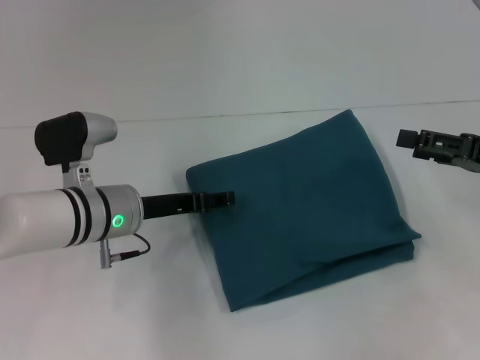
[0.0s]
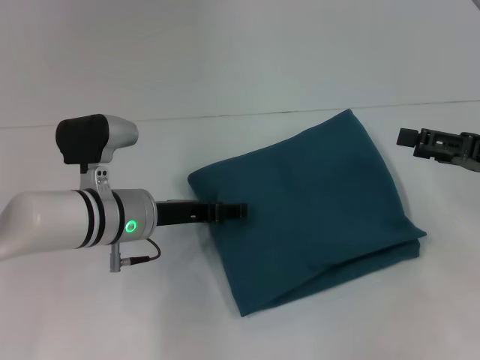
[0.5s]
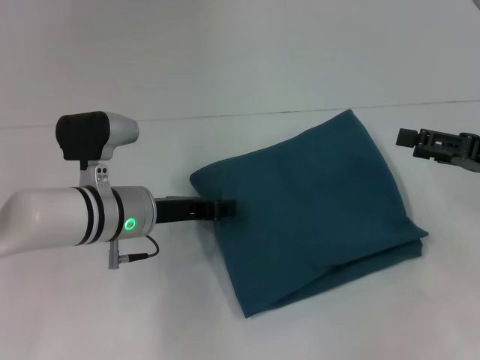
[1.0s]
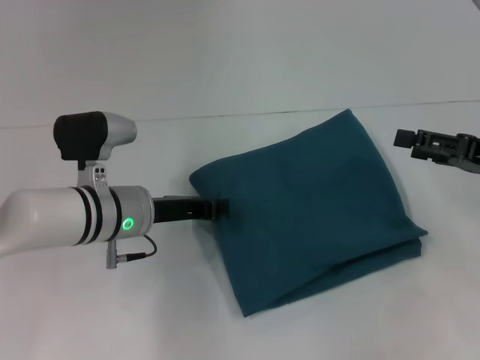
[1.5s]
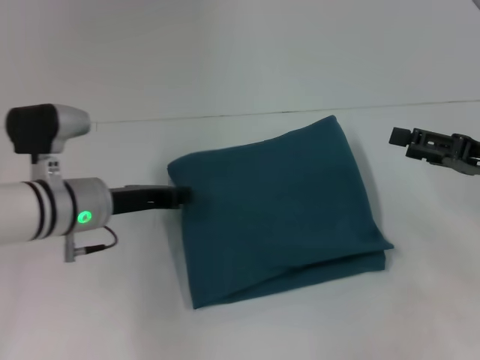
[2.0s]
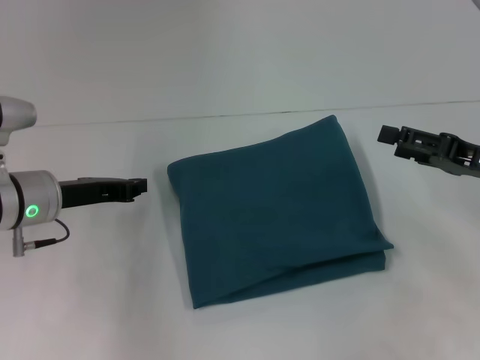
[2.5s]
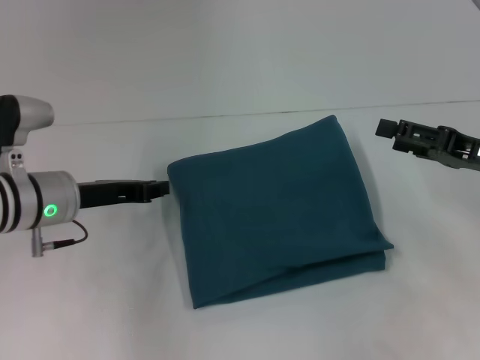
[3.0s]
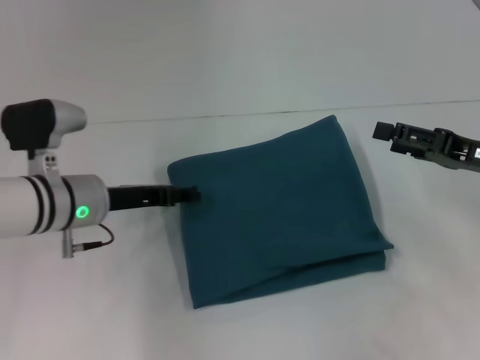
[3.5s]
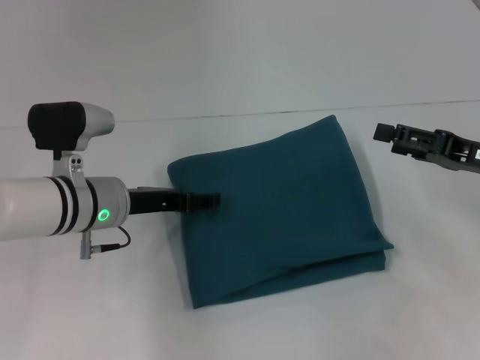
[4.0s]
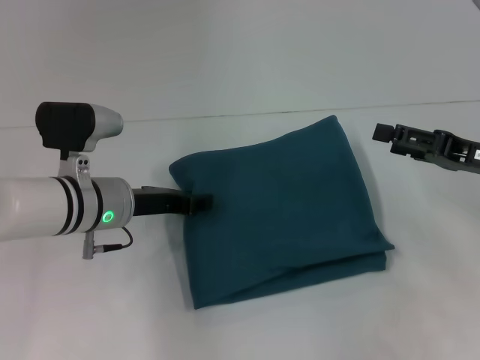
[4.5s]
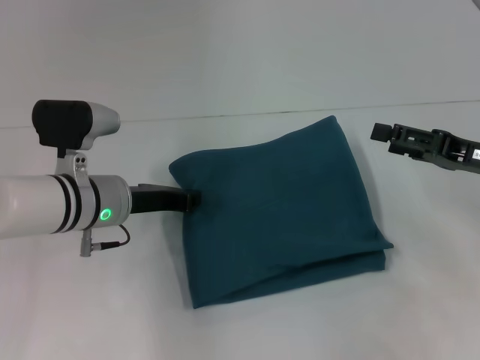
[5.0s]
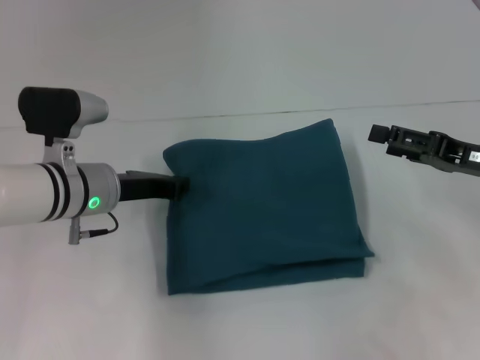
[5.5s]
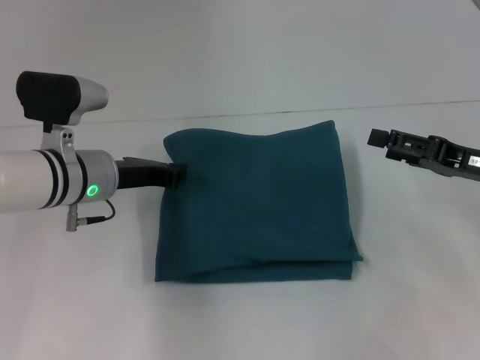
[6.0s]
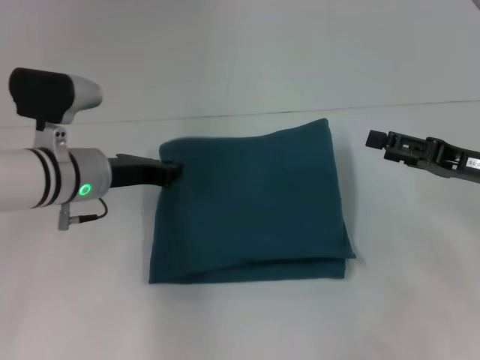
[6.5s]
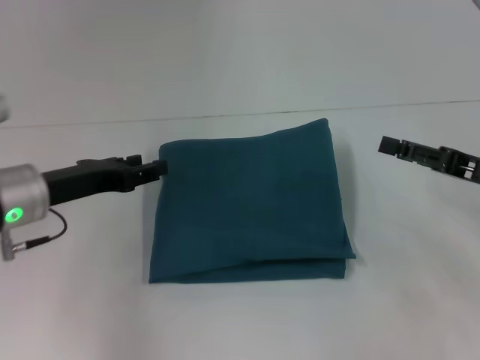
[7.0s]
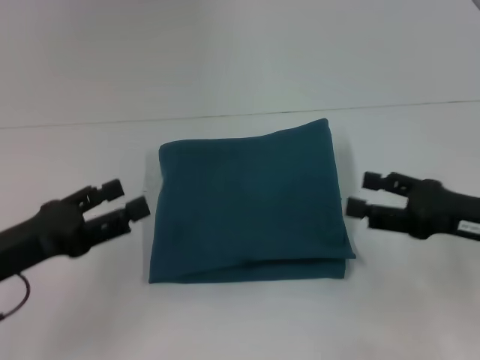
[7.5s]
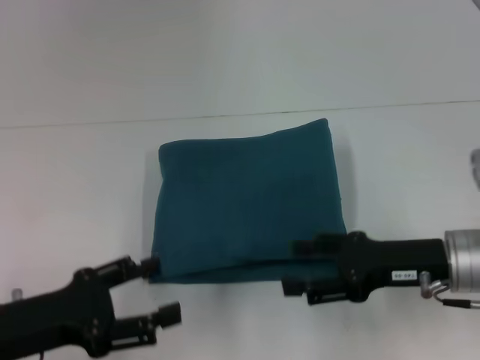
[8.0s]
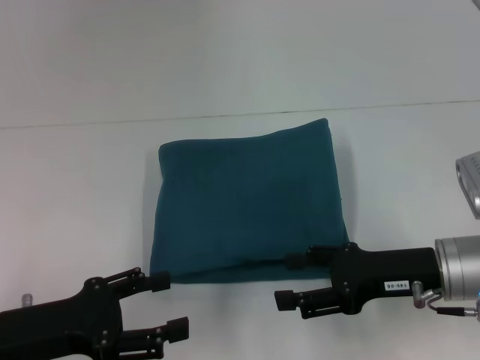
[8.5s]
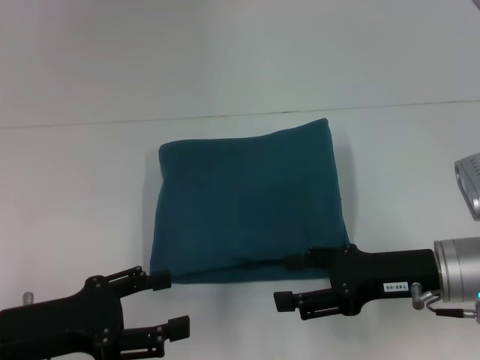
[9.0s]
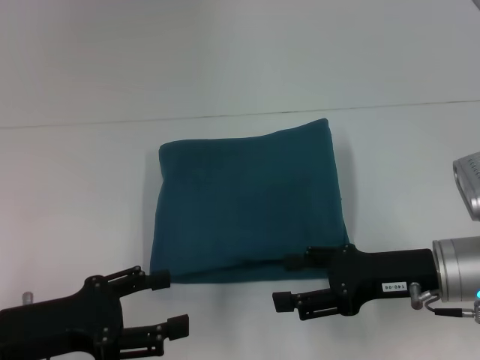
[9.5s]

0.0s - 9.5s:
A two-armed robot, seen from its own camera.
0.0s - 2.0s: The left gripper closes its fingers.
2.0s - 4.0s: The left gripper opens up.
4.0s - 5.5s: The left gripper closes its fingers.
5.5s - 7.5s: The left gripper moves backward and to the left, approximately 15 cm, and opens its fingers; the right gripper ends up roughly 5 cm from where it was.
7.5s - 9.5s: The right gripper goes about 5 cm to the left.

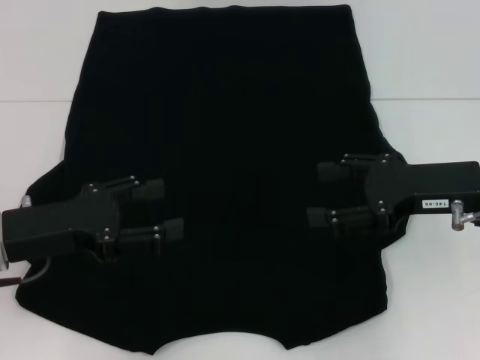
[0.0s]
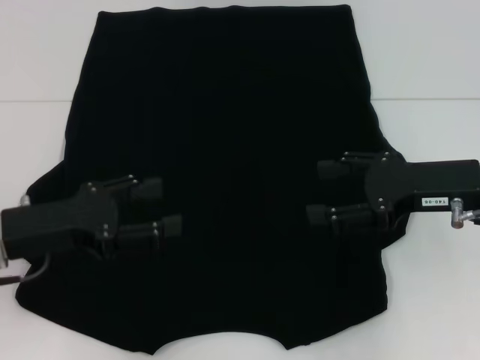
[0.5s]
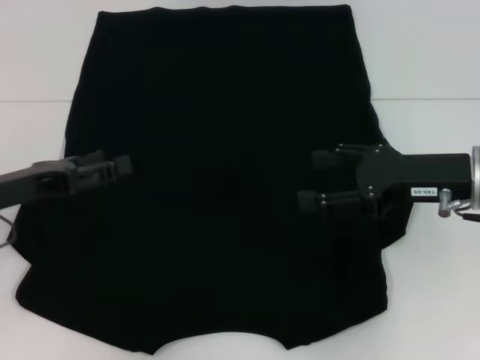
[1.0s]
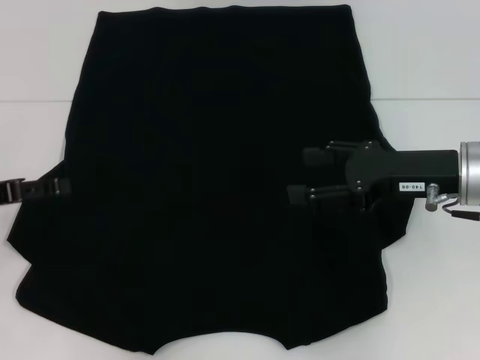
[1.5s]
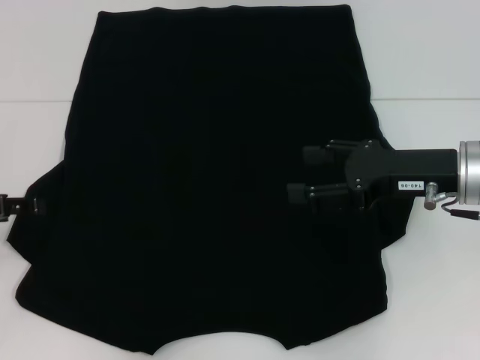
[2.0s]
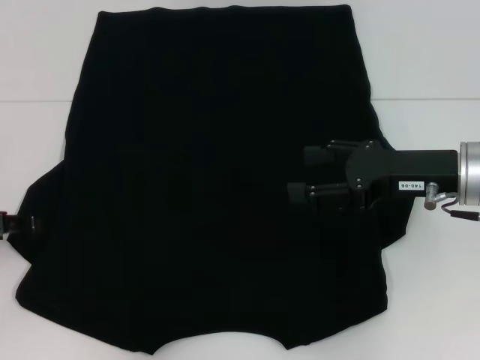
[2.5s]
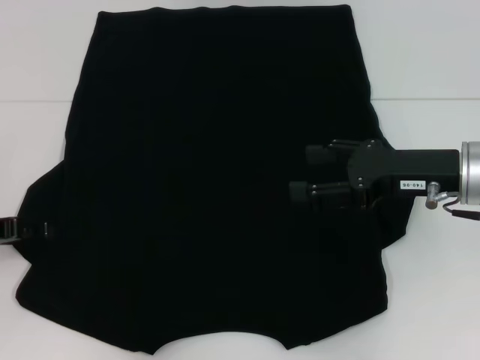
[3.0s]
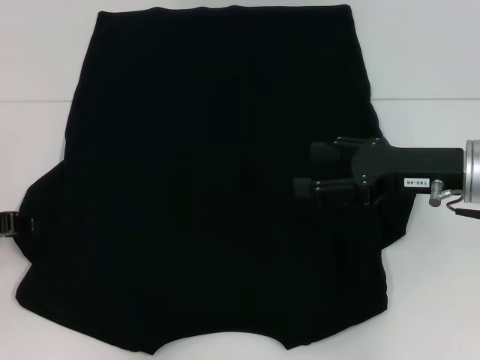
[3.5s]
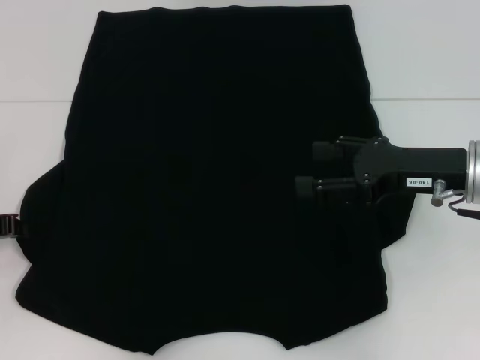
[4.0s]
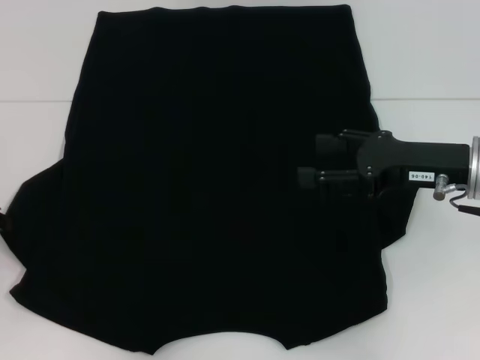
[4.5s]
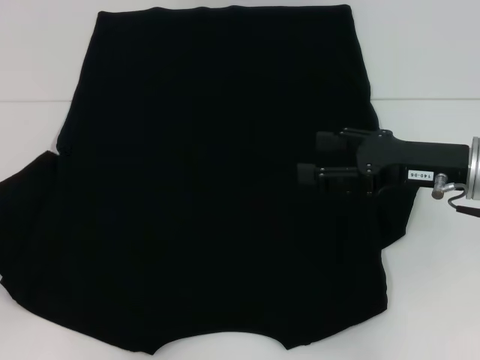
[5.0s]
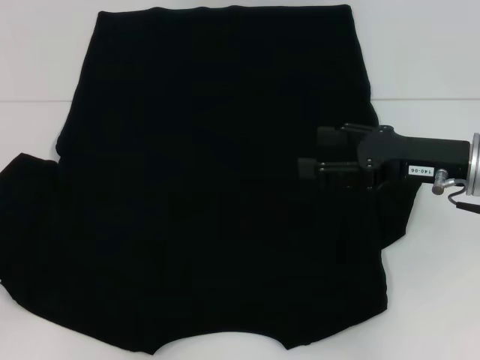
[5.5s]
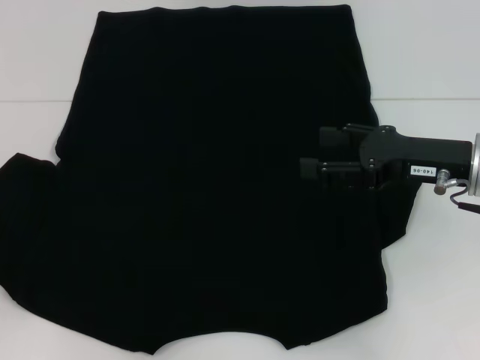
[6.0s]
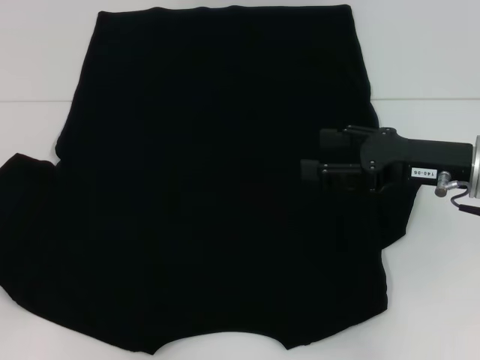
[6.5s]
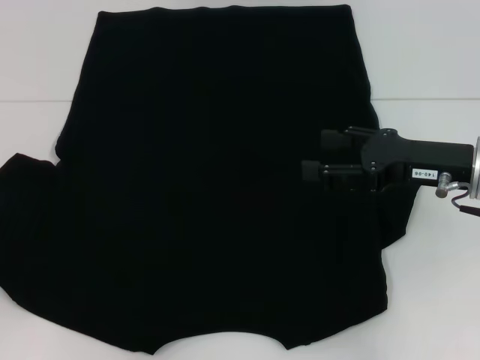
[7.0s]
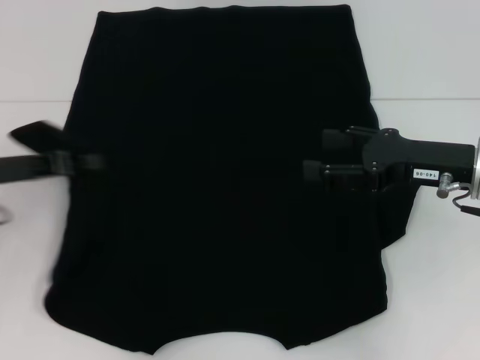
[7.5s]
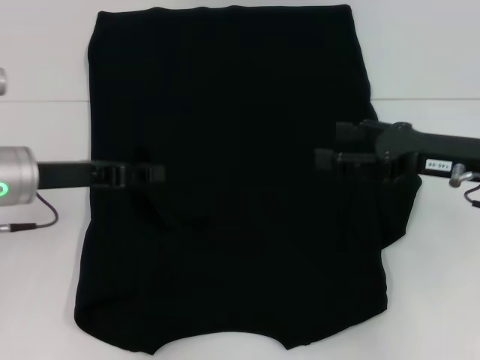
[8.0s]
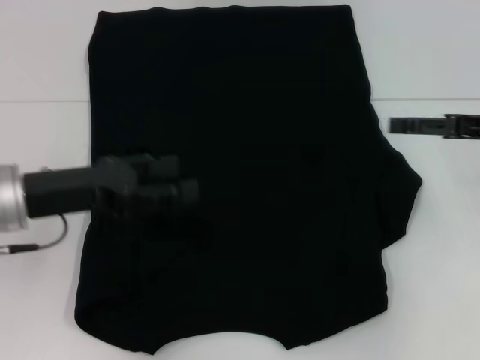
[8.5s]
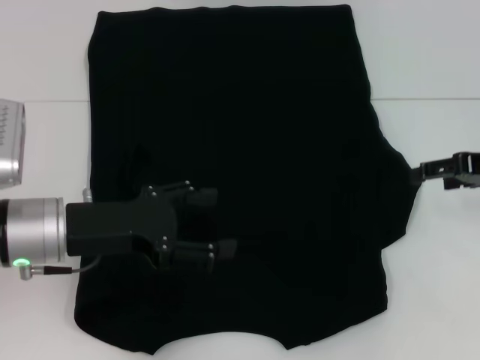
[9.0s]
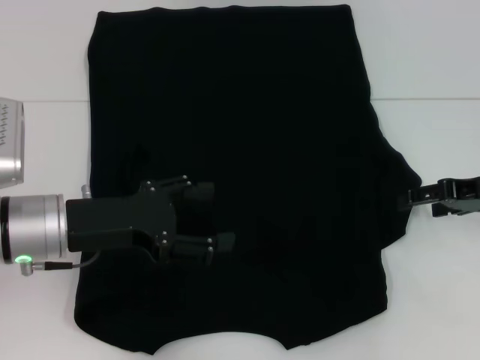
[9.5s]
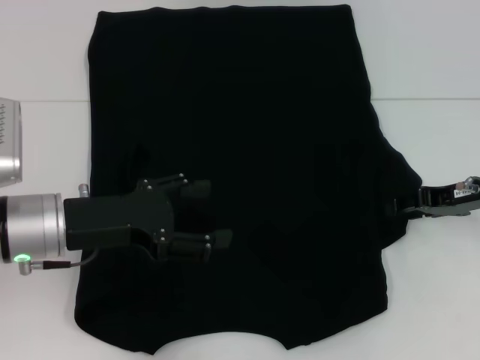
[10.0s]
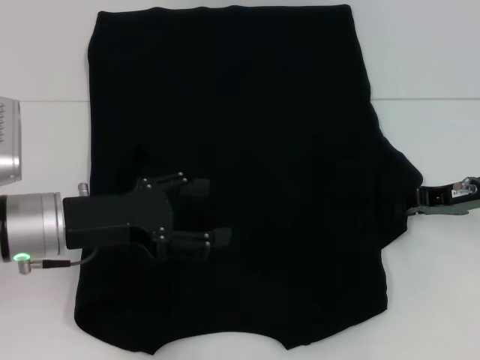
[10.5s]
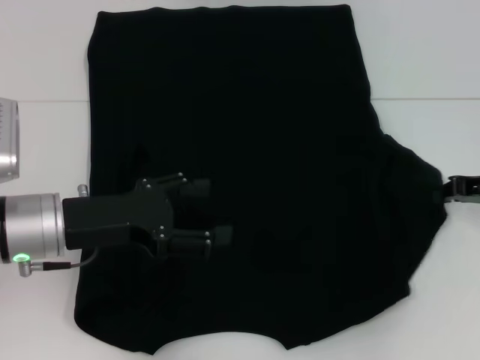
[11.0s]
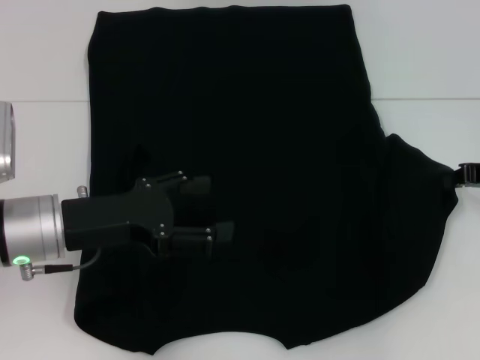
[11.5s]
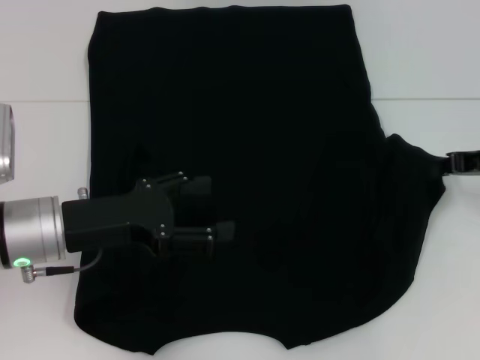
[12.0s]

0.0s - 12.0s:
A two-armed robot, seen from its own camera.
Step, 0.0s - 8.0s: Fold the bottom left sleeve with your left hand.
0.0s - 2.0s: The left gripper is displaced to the left by about 10 cm.
2.0s - 4.0s: The left gripper closes its fingers.
4.0s - 6.0s: The left gripper heads to the left, covering approximately 5 cm.
6.0s - 8.0s: The left gripper travels to the right and forward by some 15 cm.
8.0s - 10.0s: The right gripper changes place by some 5 cm. The left gripper changes place by about 5 cm, and opens up.
10.0s - 12.0s: The right gripper closes.

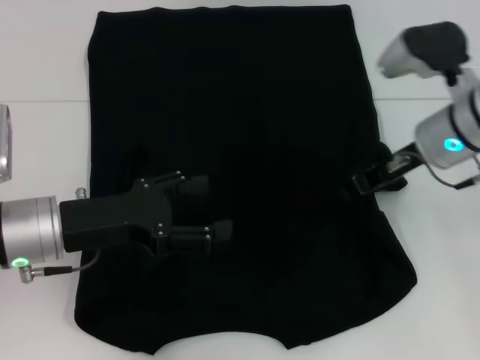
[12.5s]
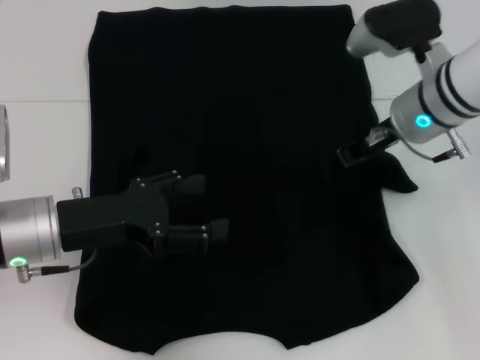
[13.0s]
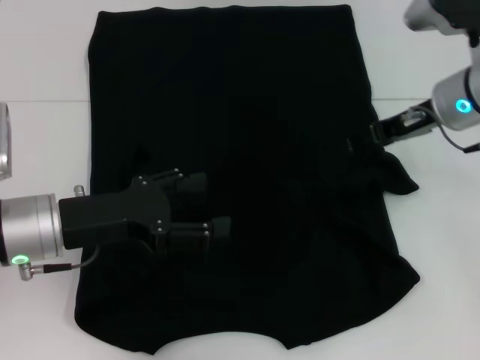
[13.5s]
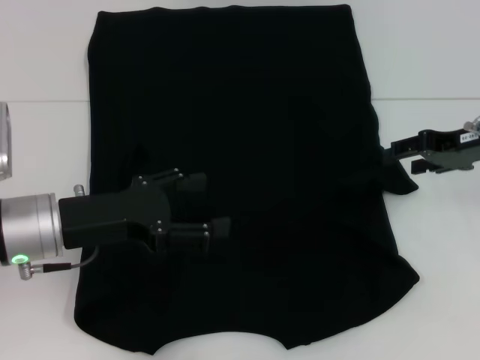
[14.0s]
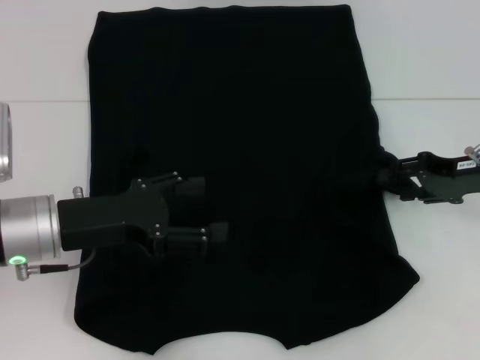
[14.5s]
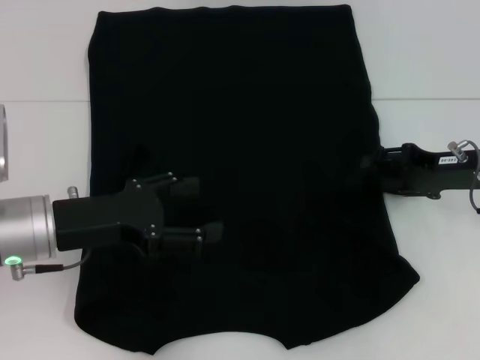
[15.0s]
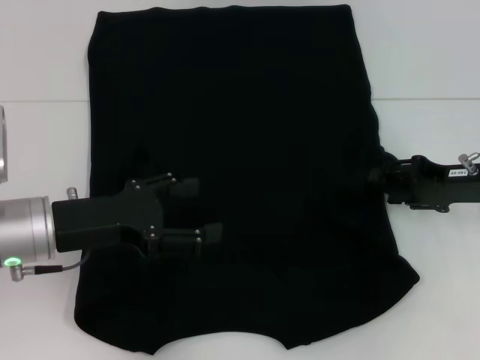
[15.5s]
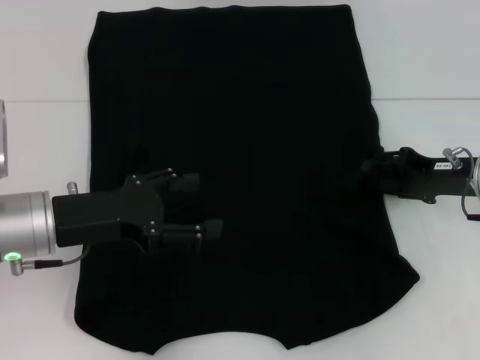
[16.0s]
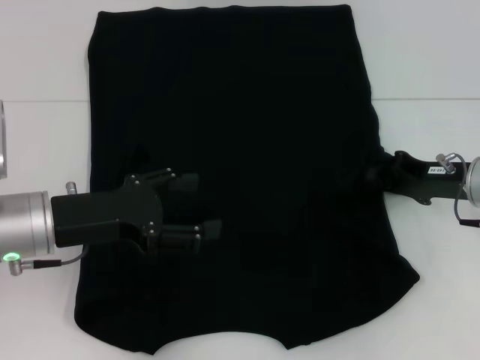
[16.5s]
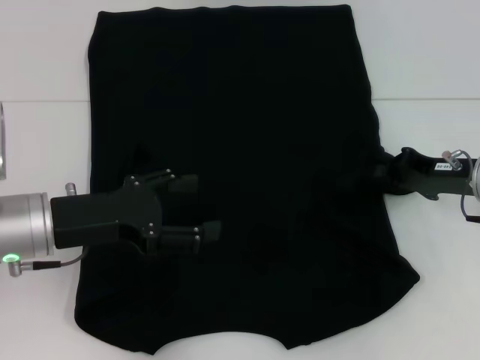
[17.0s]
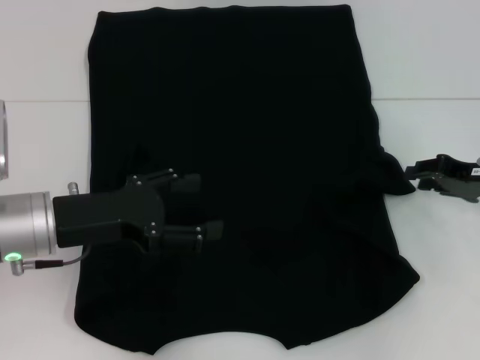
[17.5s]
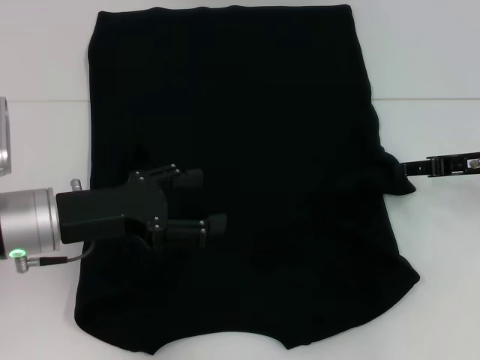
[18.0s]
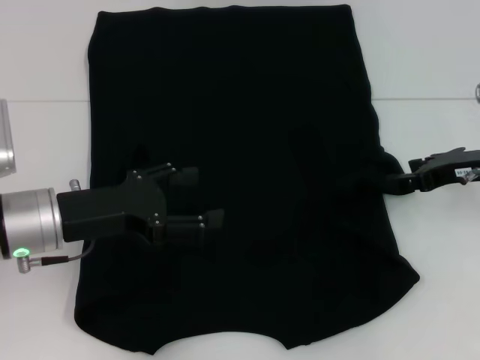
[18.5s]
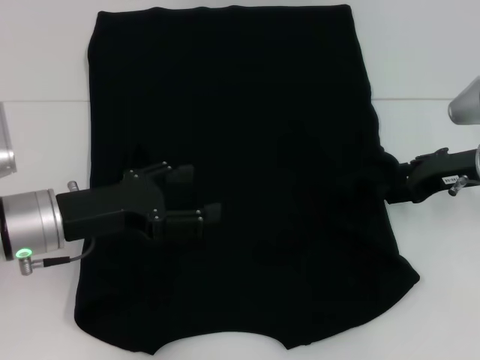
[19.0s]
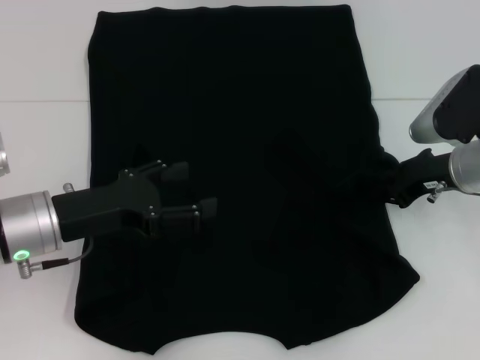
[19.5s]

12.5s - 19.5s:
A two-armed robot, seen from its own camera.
12.5s - 14.5s: The right gripper goes about 10 cm to the right, and opens.
14.5s - 16.0s: The grippers move only a little.
16.0s - 17.5s: The right gripper closes up.
17.5s - 19.5s: The right gripper moves to the left, approximately 5 cm, and opens its fingers.
